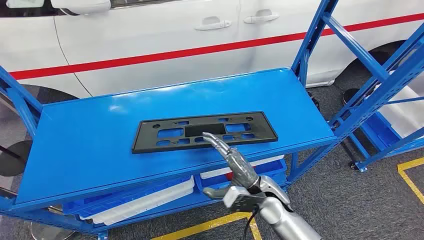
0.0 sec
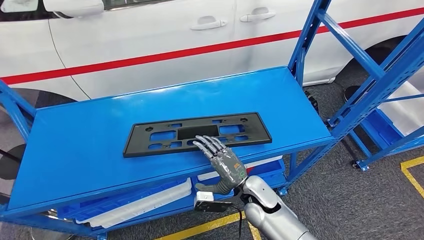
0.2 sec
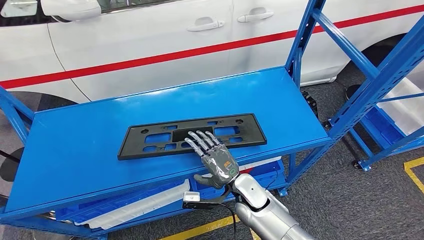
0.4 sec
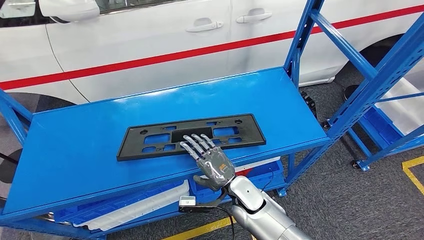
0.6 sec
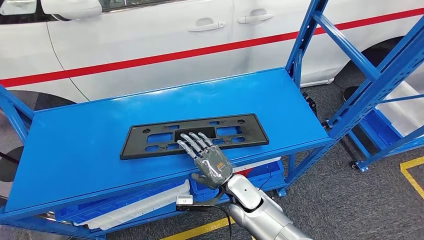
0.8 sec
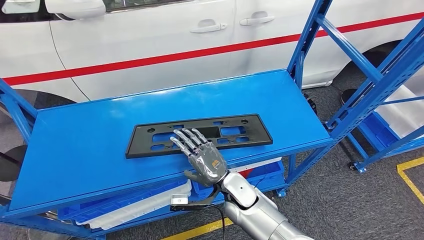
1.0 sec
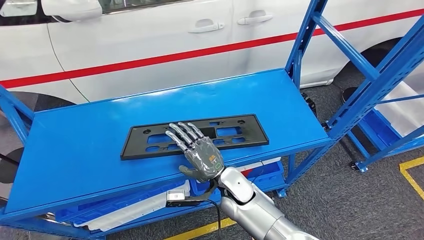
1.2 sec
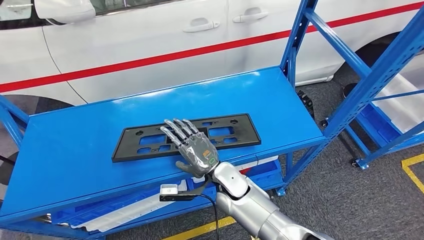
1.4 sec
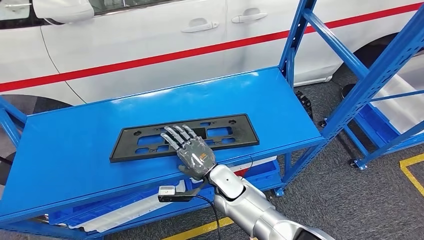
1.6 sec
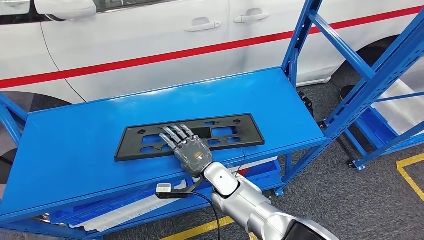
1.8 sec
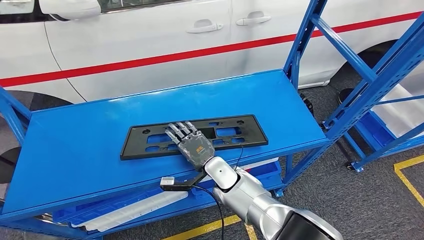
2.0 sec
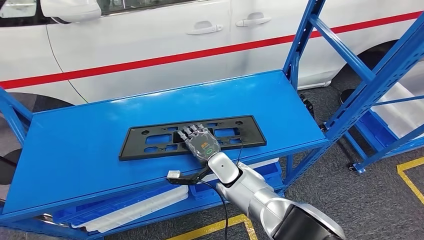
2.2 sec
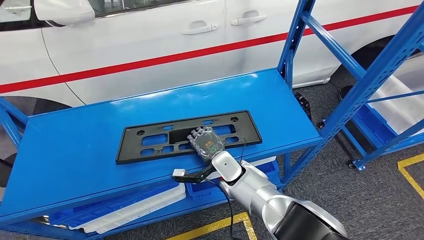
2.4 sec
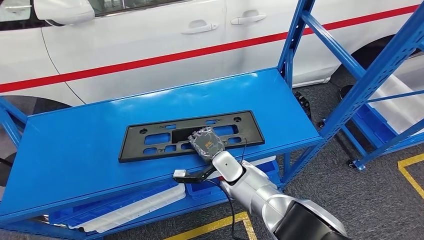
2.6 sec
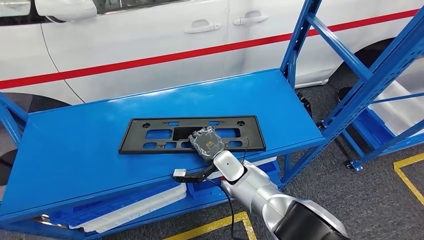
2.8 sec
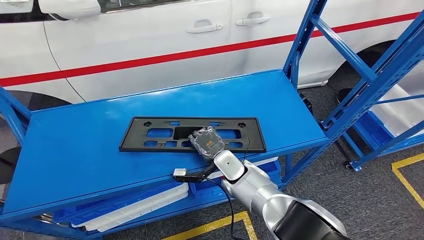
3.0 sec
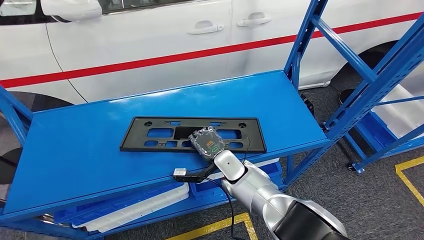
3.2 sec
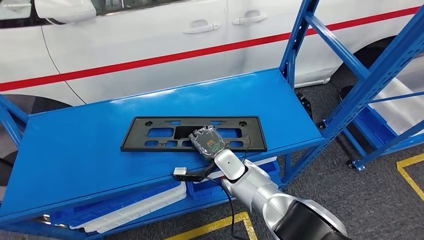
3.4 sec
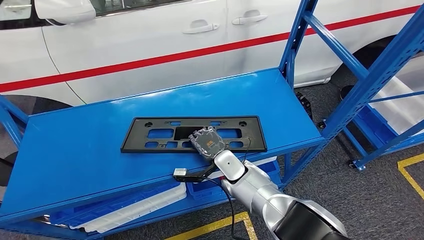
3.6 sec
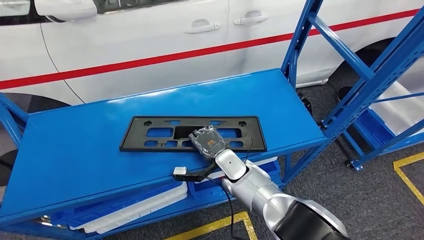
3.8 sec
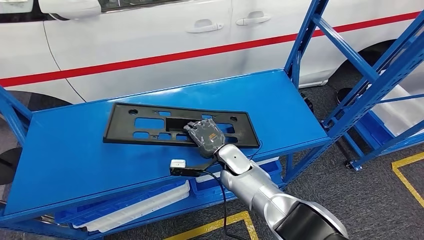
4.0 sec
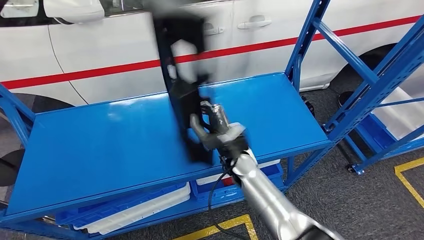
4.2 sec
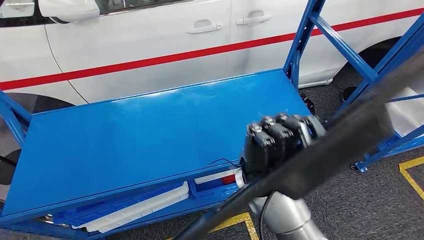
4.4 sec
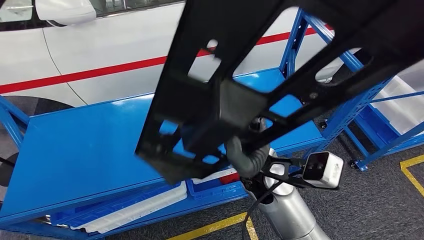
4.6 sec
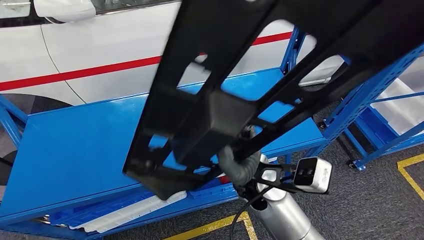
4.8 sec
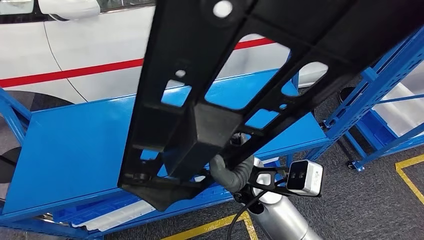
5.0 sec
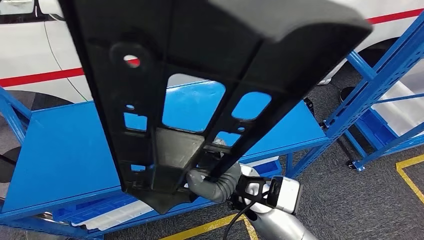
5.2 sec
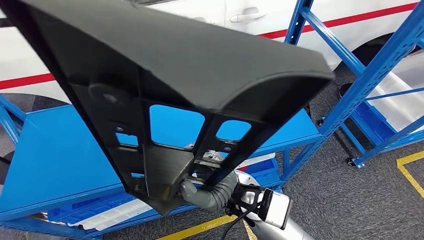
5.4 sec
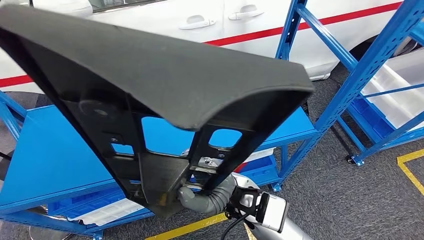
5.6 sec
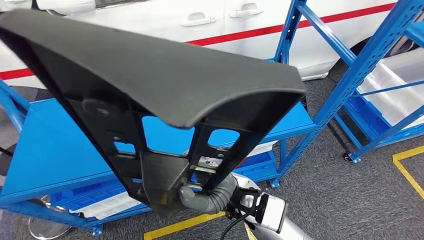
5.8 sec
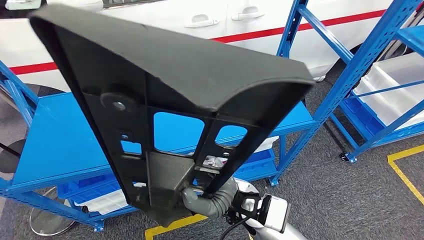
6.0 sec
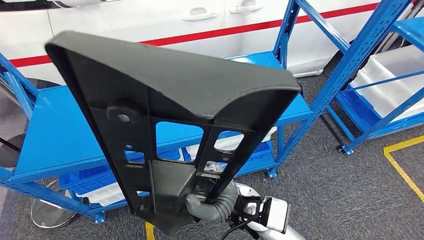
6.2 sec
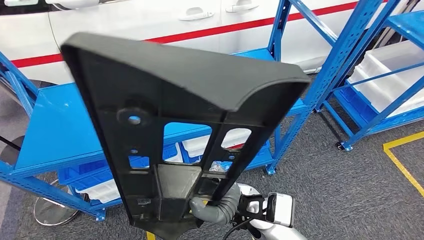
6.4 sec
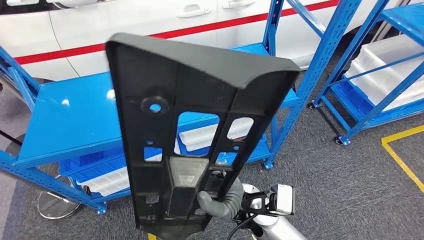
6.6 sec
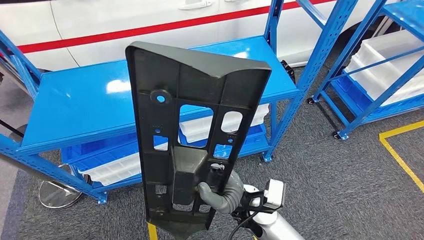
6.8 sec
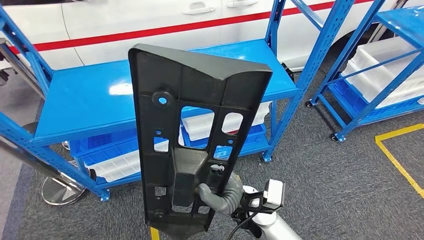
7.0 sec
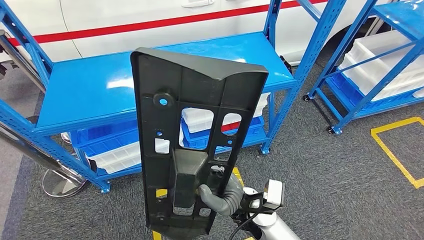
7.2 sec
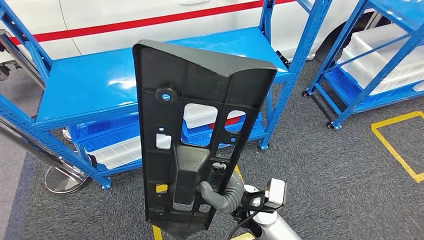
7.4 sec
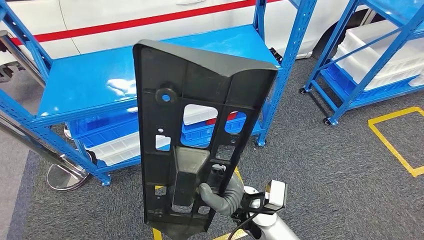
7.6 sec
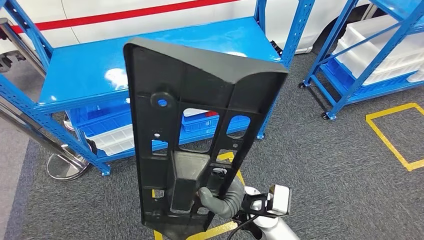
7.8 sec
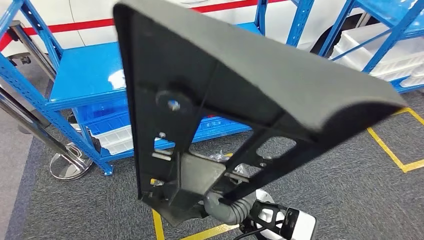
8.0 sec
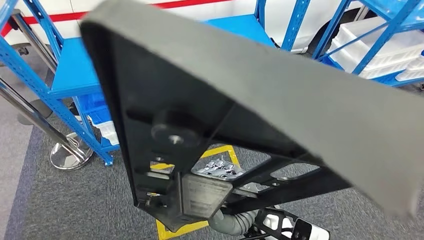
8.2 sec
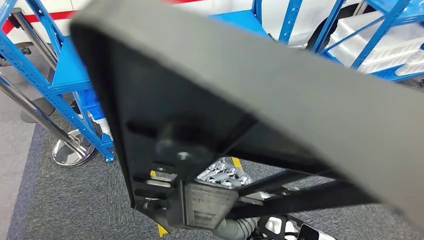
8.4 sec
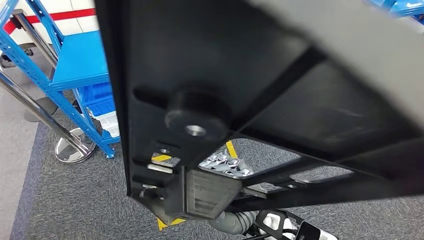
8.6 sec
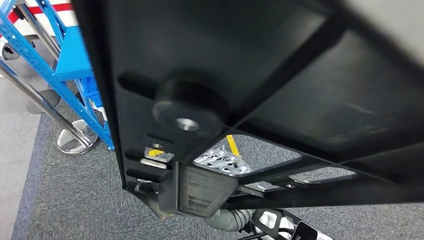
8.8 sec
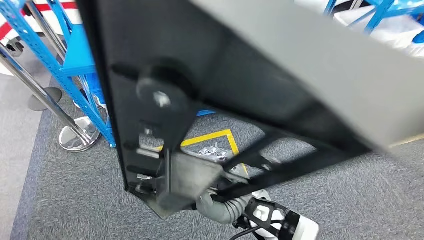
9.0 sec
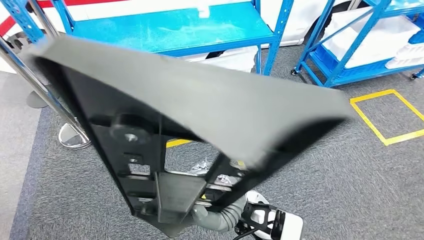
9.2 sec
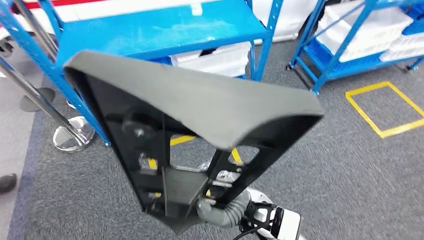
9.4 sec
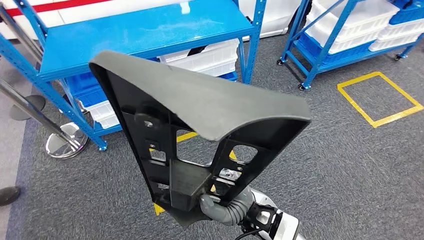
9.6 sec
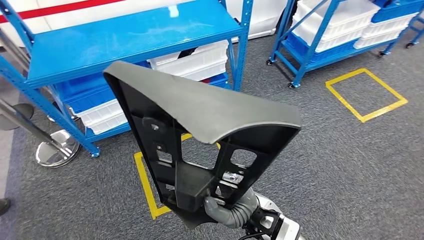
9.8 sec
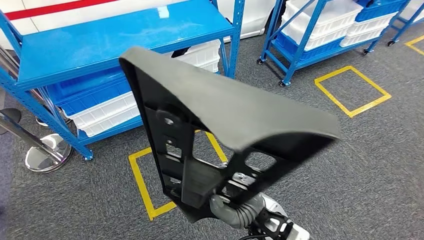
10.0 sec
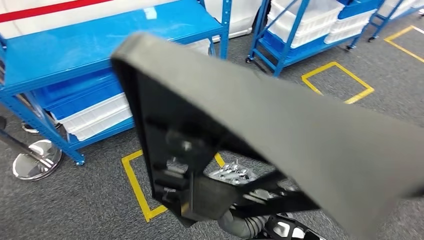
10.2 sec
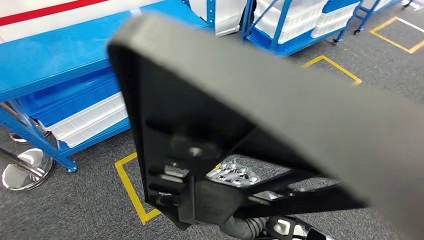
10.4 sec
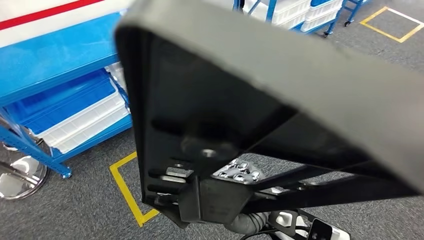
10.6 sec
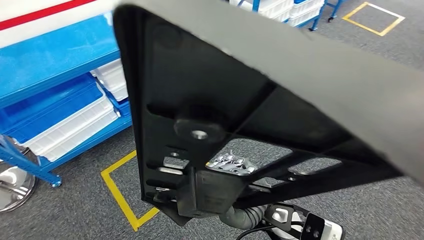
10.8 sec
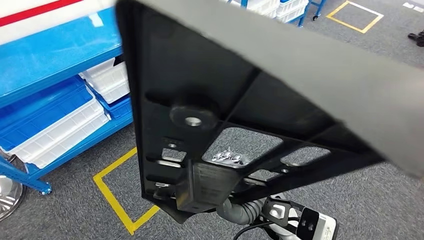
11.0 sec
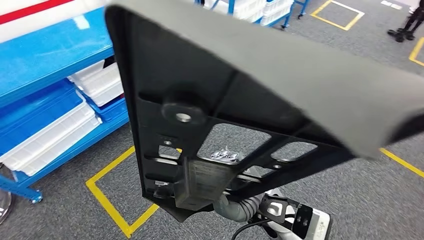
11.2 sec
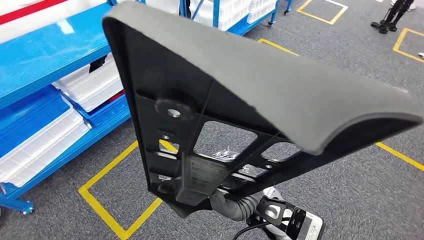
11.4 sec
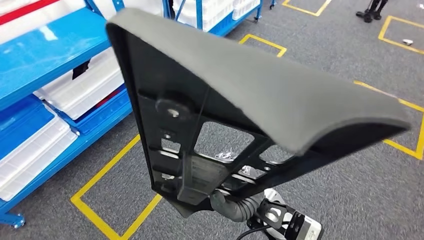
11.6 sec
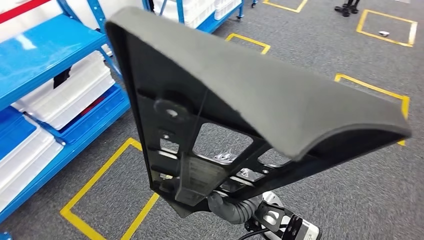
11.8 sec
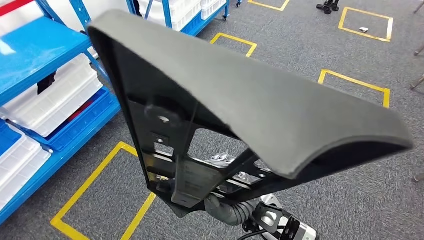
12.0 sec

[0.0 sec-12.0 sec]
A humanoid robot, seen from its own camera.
Step, 0.0 sec to 4.2 sec: Pick up the large material from the shelf.

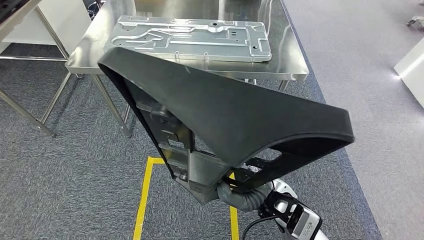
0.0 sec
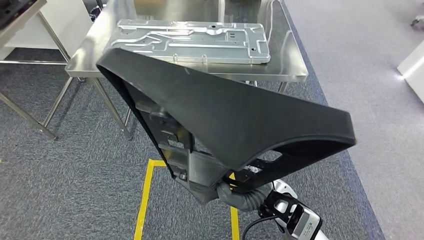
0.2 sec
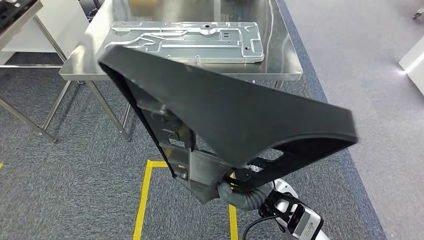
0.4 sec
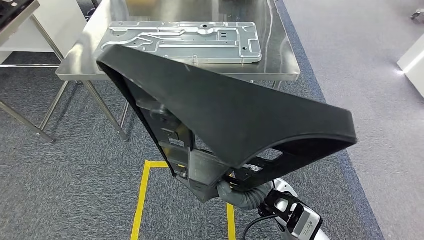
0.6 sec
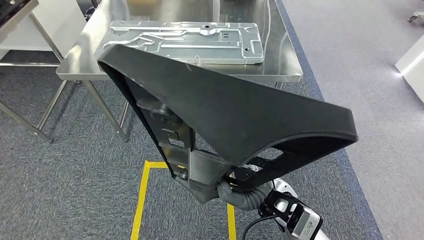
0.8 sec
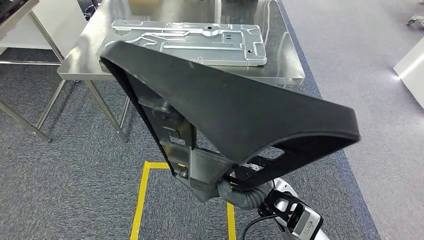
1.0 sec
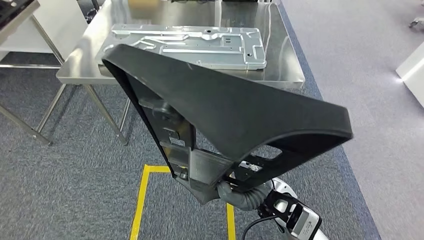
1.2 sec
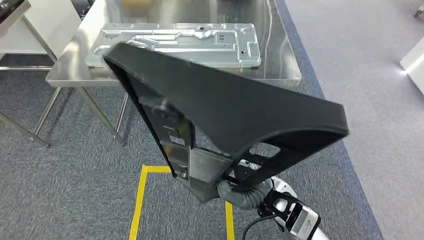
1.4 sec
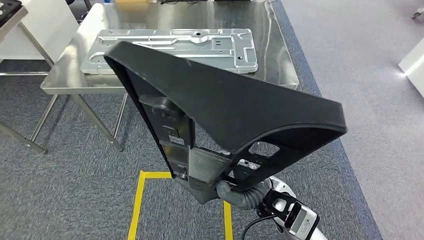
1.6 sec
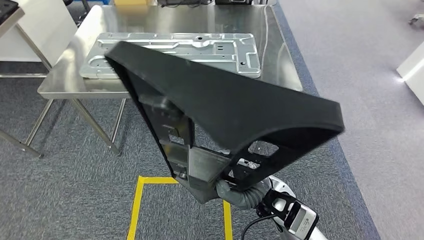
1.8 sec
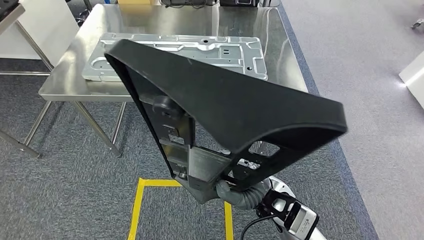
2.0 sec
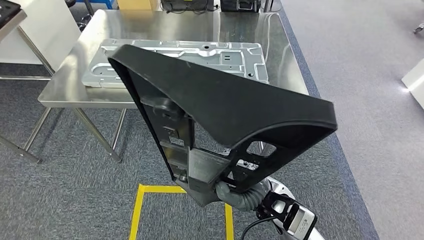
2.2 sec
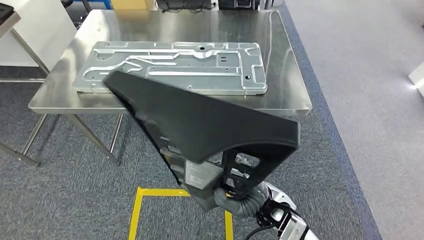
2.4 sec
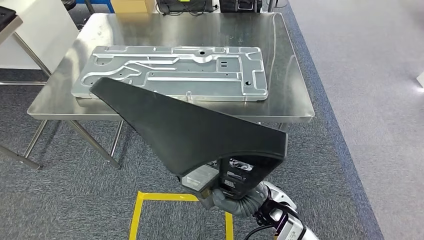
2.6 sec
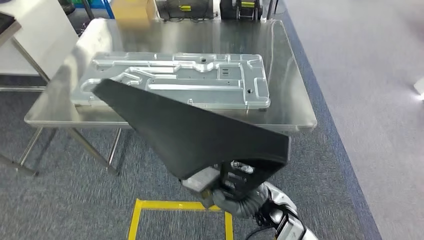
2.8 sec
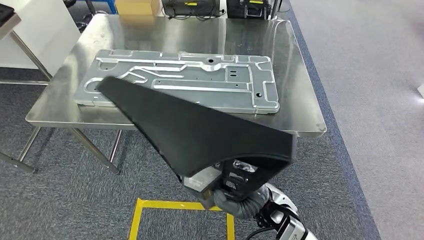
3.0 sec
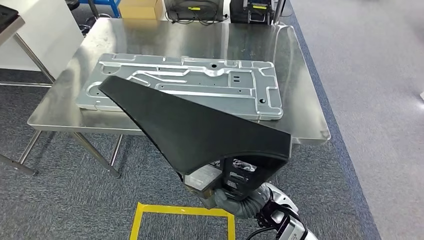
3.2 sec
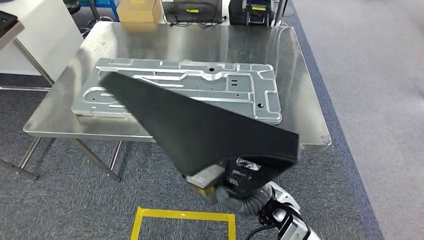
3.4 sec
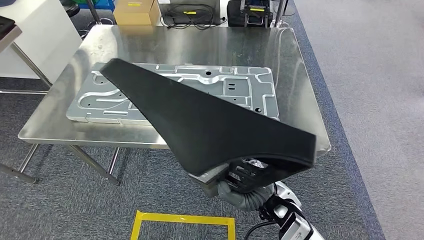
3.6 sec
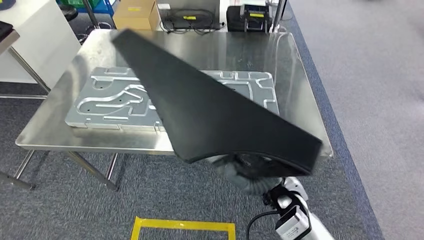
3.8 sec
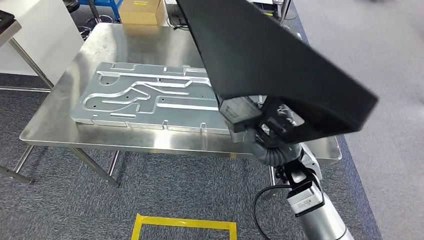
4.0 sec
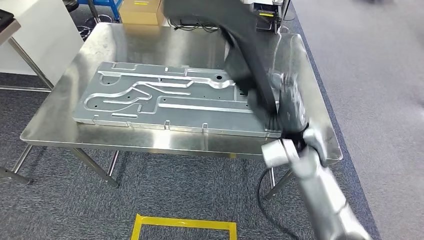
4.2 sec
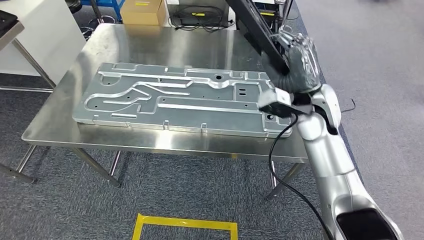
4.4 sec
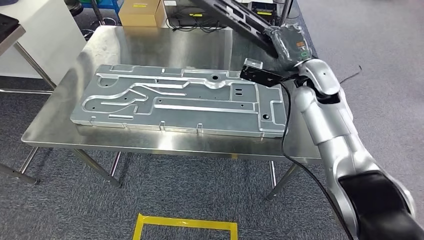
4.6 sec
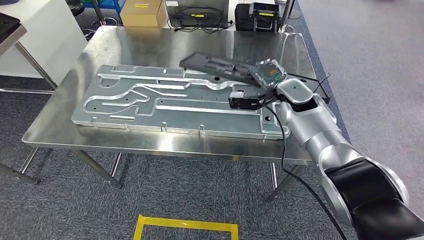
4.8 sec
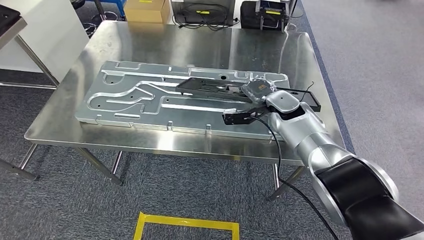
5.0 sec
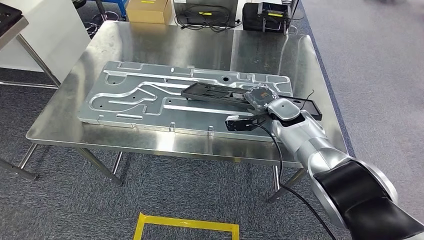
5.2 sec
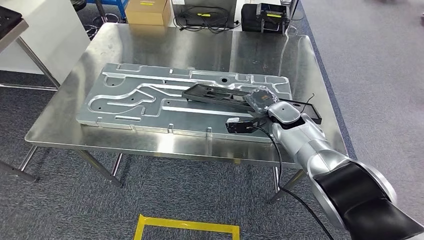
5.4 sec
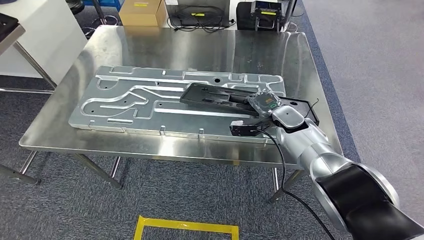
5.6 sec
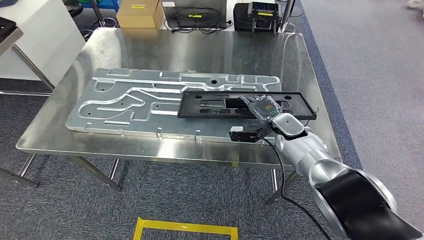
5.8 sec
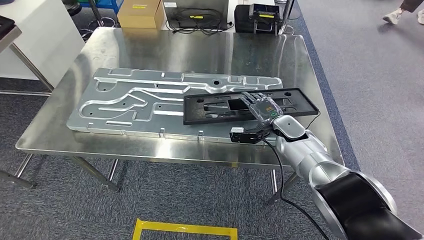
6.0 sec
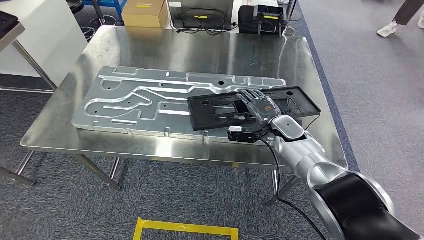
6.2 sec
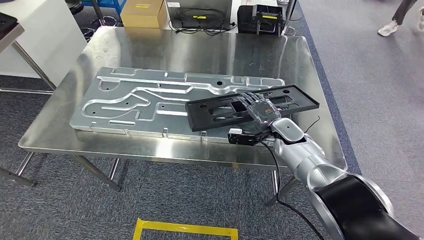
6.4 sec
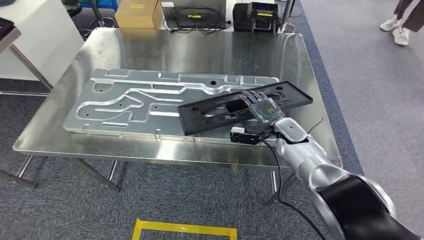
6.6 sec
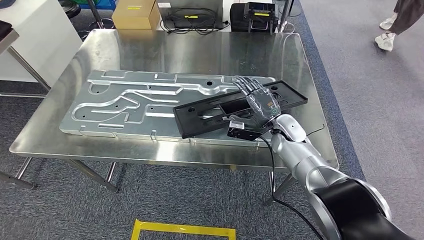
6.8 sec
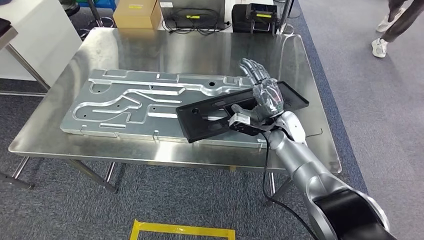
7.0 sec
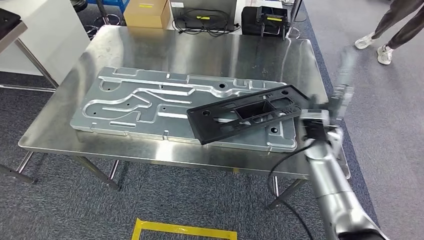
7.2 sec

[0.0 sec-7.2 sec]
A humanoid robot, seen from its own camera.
Step, 0.0 sec to 4.2 sec: Move the large material to the workbench.
